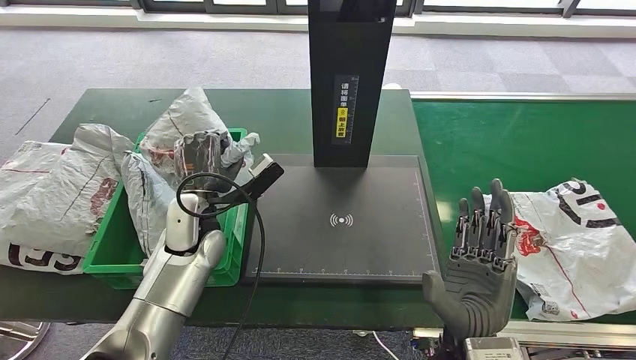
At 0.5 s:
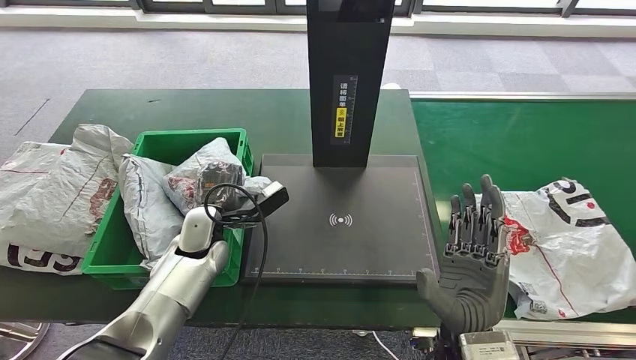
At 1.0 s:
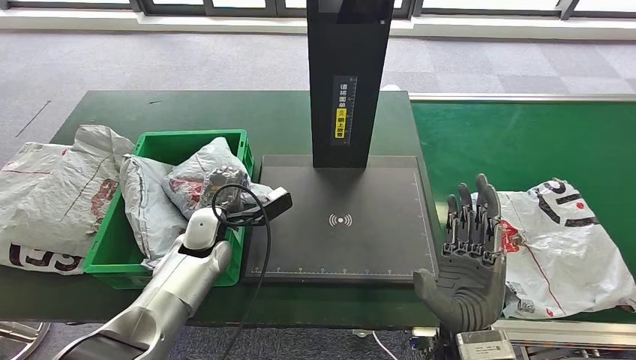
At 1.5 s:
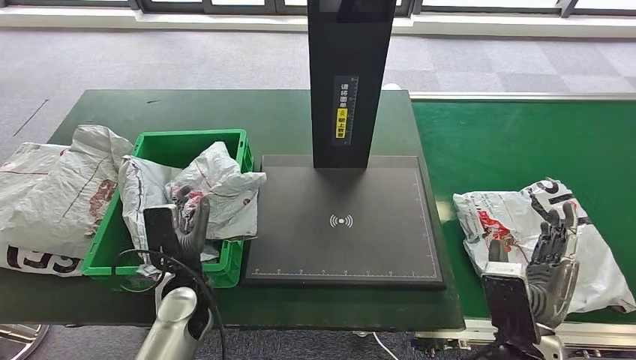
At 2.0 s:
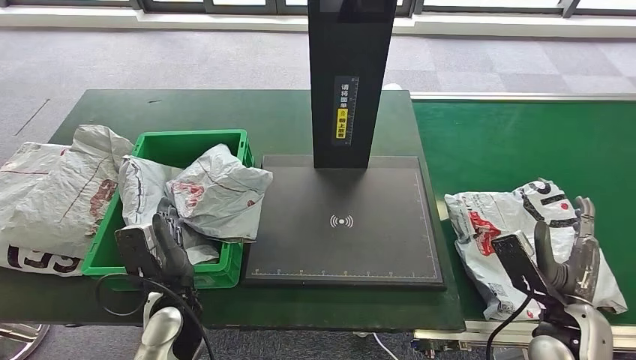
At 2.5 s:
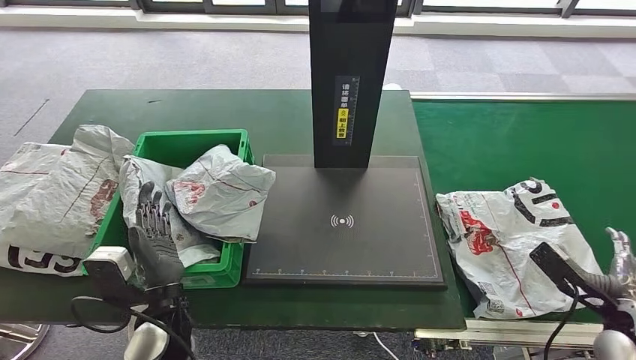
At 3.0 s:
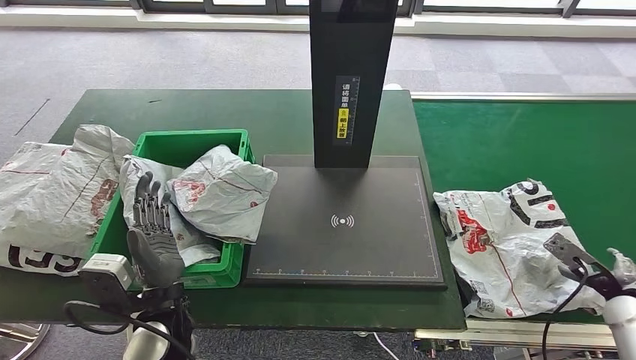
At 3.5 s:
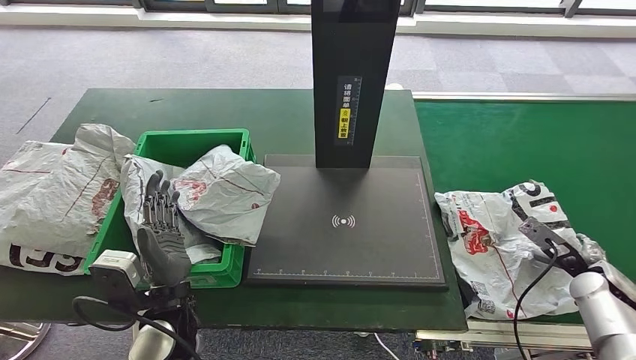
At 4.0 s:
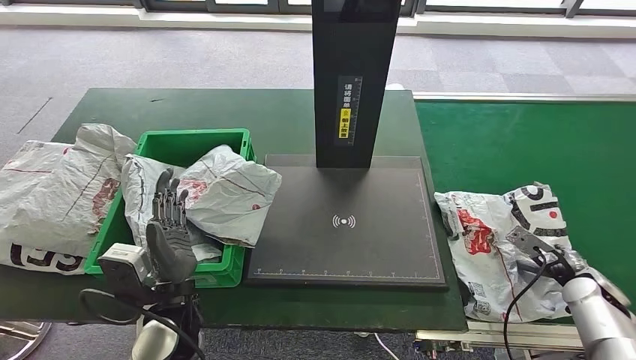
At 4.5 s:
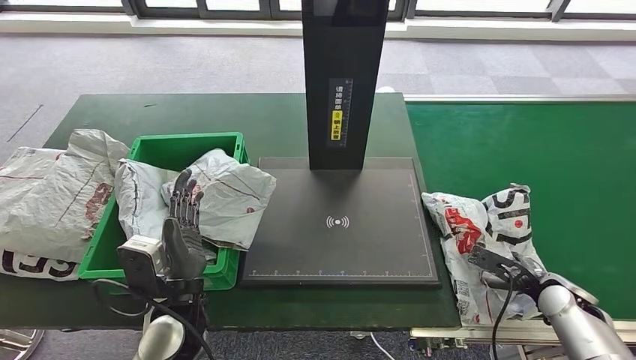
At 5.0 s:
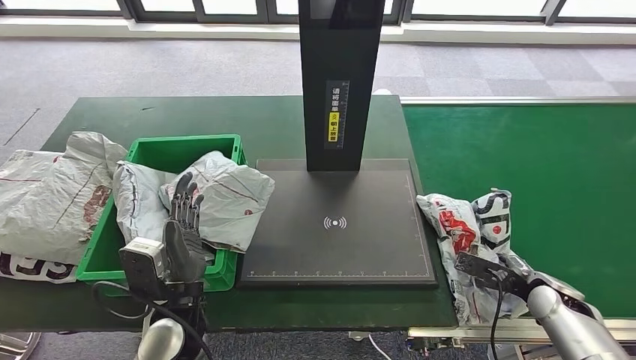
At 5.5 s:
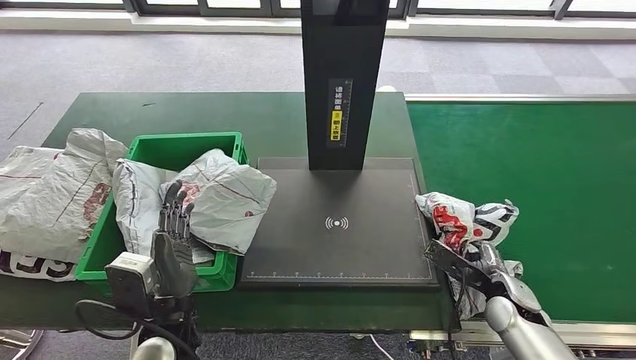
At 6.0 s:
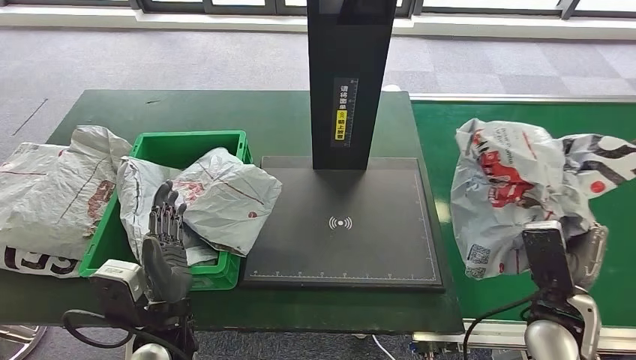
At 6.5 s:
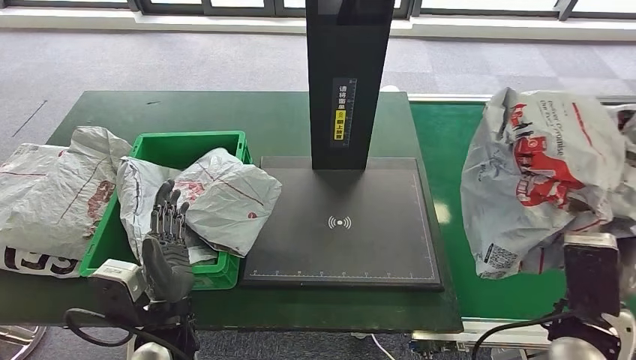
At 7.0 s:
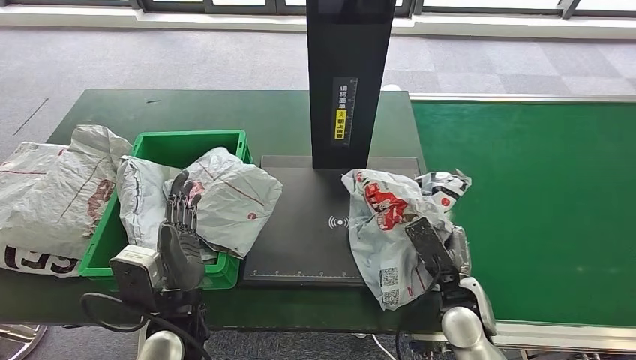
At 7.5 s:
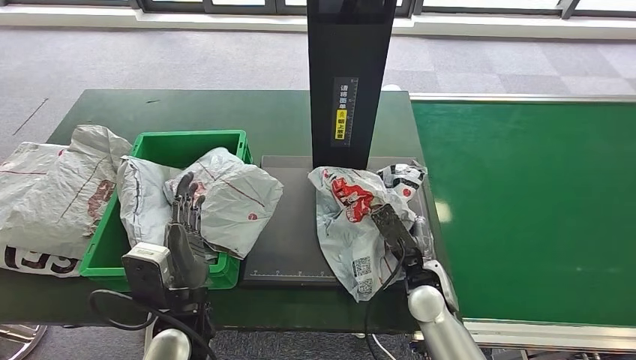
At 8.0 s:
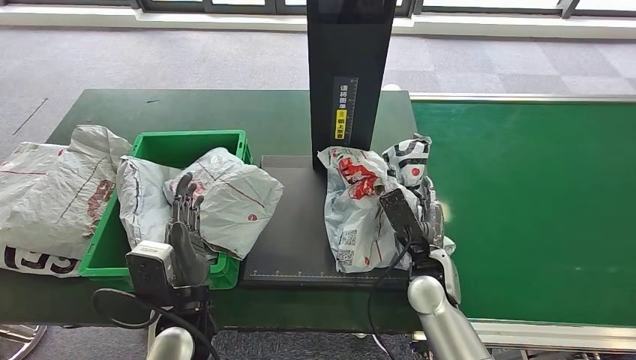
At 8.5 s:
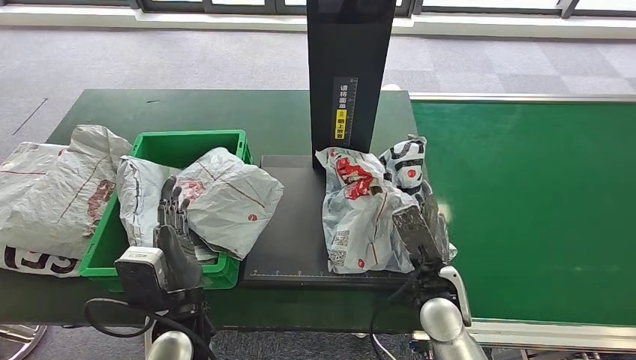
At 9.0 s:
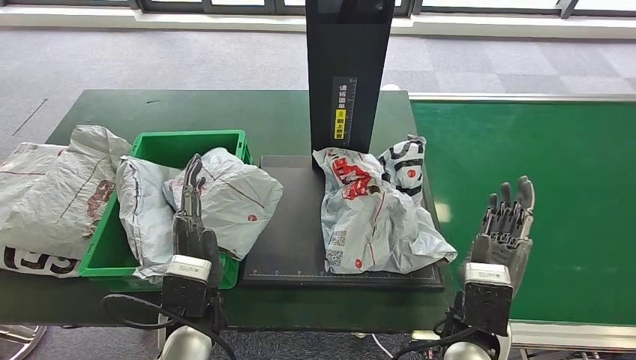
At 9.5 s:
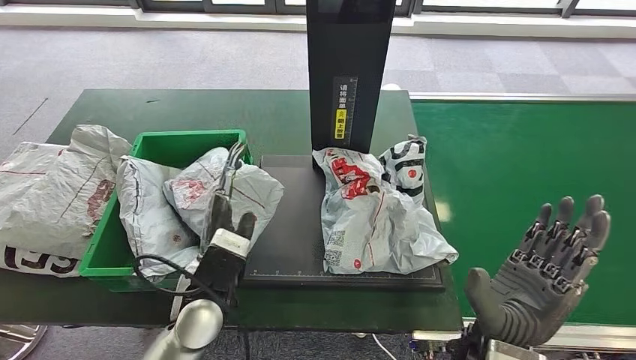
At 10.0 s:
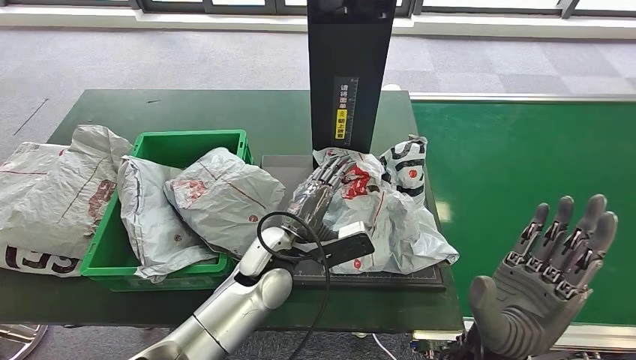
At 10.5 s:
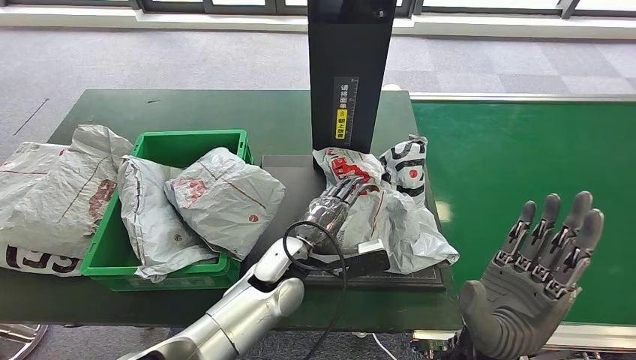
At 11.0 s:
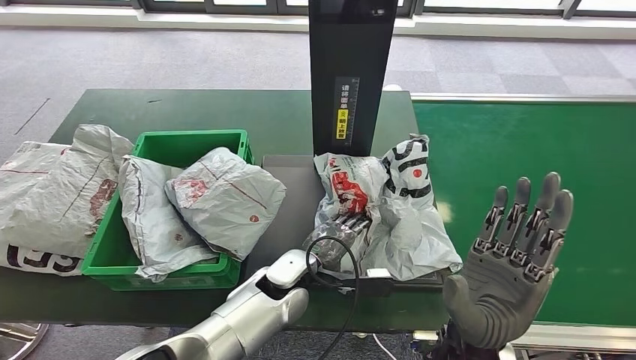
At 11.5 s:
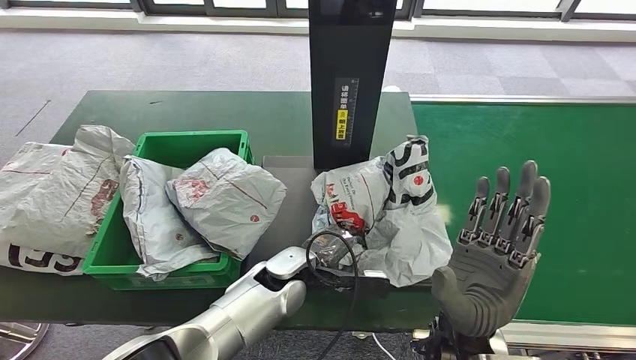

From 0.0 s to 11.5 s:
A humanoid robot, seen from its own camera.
Step, from 0.0 s to 2.5 s: Place the parcel into the delivery box.
Step, from 4.5 s to 6.0 s: Pick up the parcel from the conveyor belt.
Step, from 7.0 s to 10.0 s: Place the parcel onto the inbound machine.
From 2.0 s to 4.0 s: The right hand moves to the right and forward, roughly 15 cm.
From 7.5 s to 9.5 s: The left hand ends up about 5 cm from where it was; the right hand travels upward and backward by roughly 15 cm.

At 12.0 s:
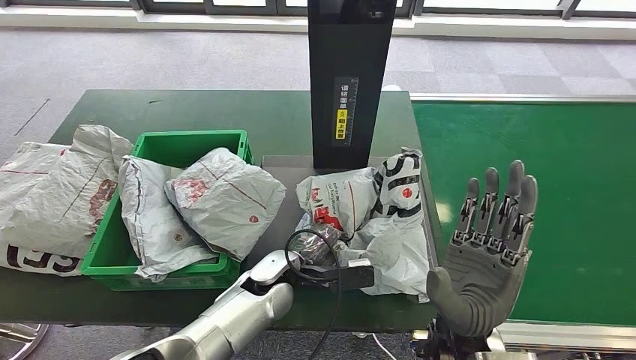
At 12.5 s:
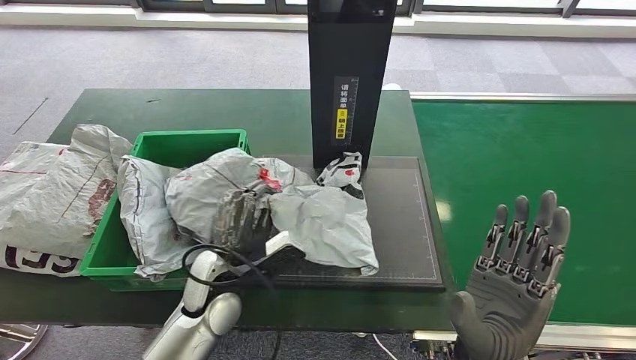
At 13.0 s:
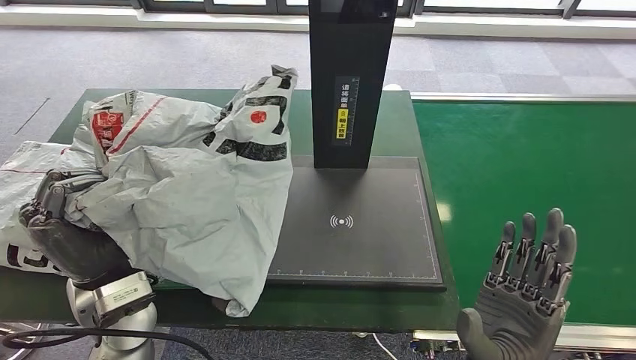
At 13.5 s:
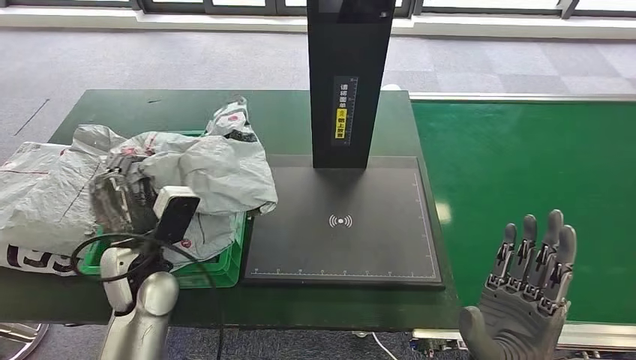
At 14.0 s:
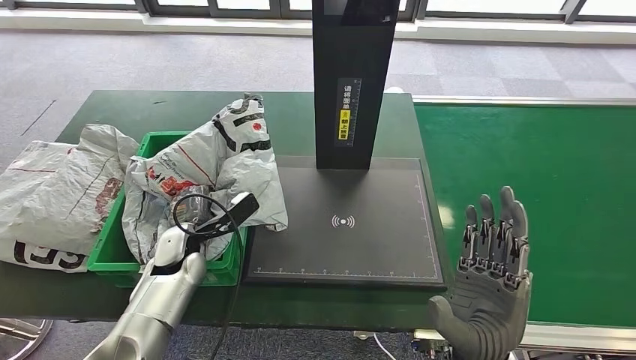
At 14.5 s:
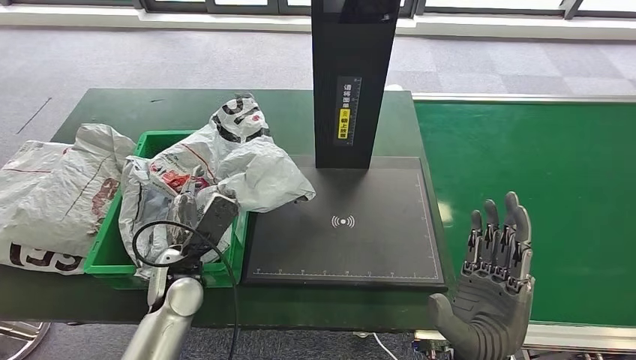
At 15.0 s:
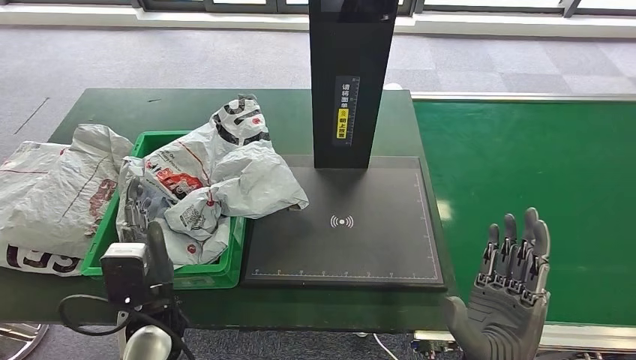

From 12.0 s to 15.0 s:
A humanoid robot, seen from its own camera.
Step, from 13.5 s to 15.0 s: Place the parcel into the delivery box.
